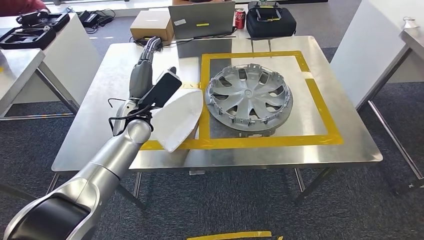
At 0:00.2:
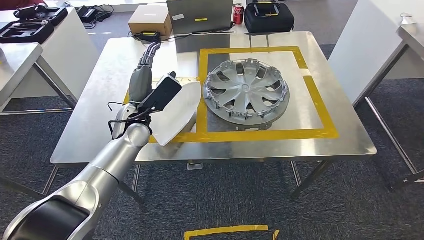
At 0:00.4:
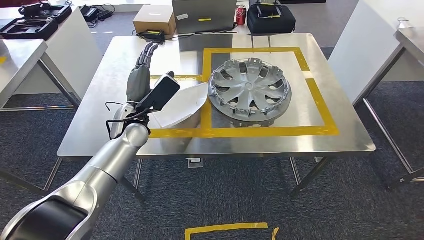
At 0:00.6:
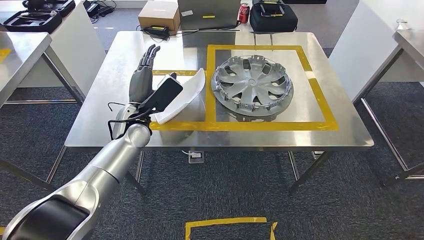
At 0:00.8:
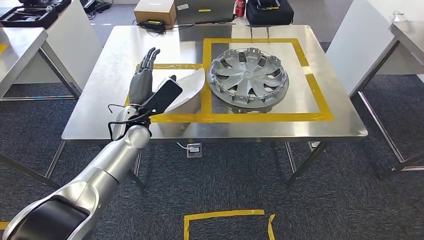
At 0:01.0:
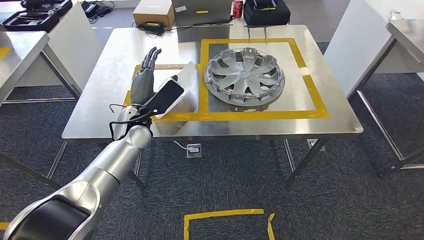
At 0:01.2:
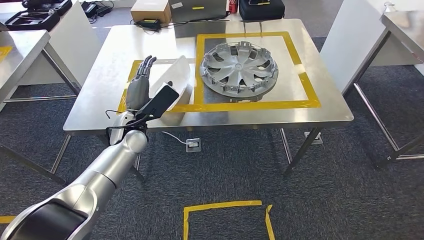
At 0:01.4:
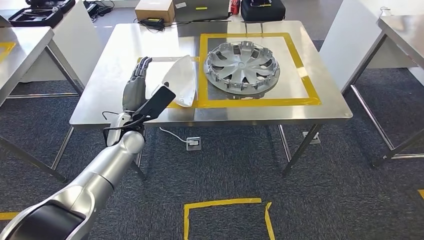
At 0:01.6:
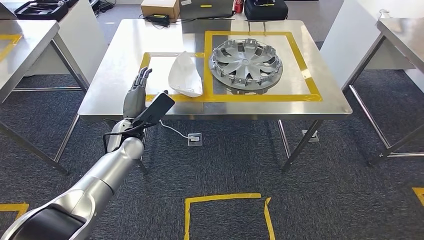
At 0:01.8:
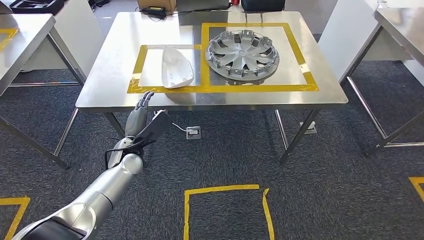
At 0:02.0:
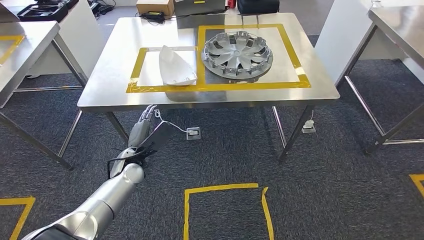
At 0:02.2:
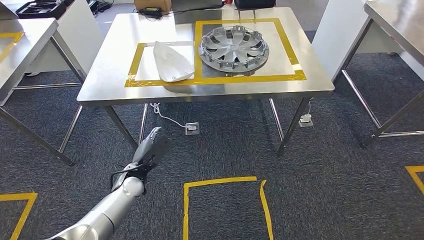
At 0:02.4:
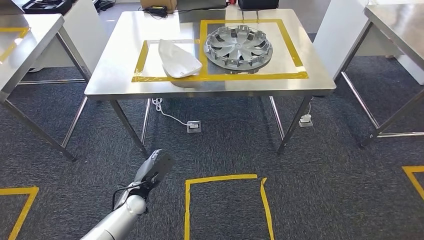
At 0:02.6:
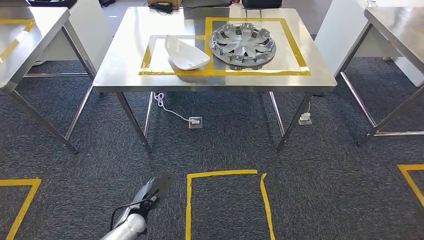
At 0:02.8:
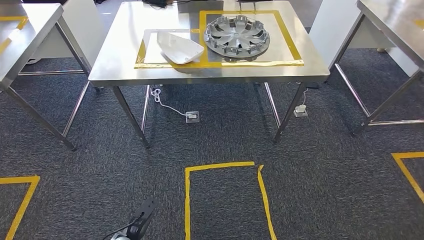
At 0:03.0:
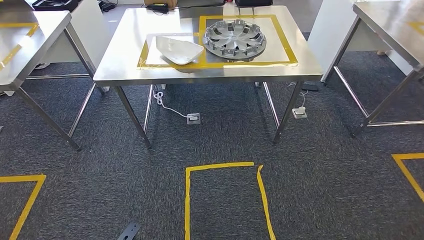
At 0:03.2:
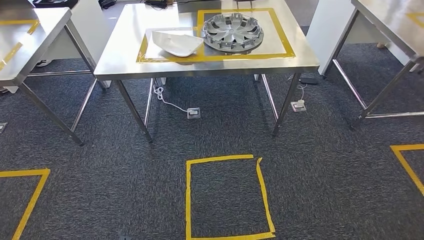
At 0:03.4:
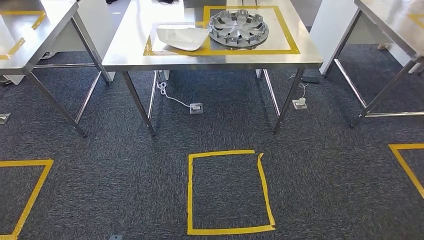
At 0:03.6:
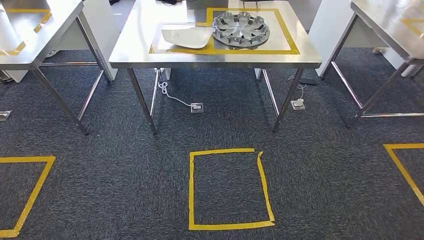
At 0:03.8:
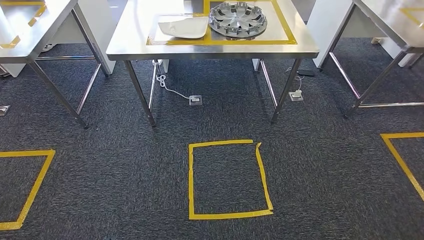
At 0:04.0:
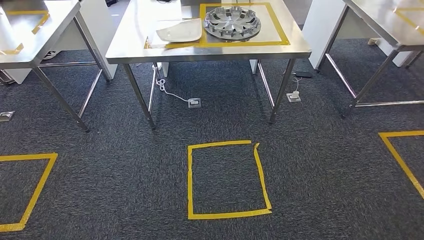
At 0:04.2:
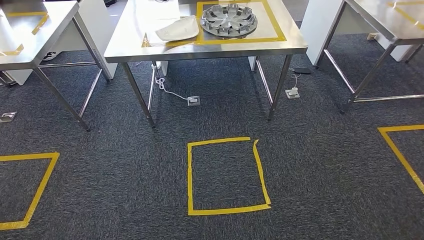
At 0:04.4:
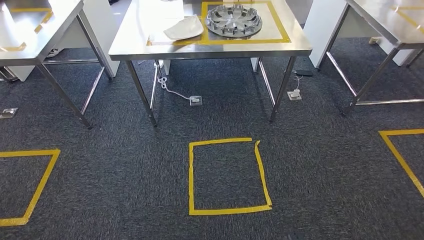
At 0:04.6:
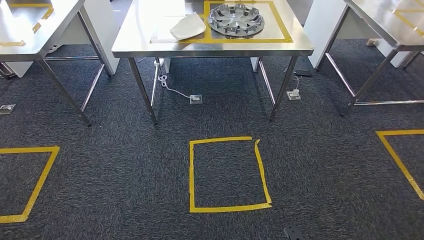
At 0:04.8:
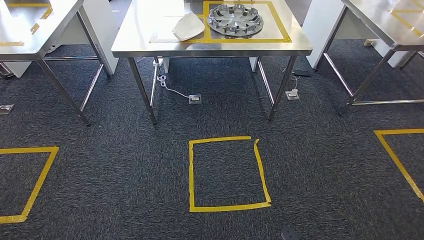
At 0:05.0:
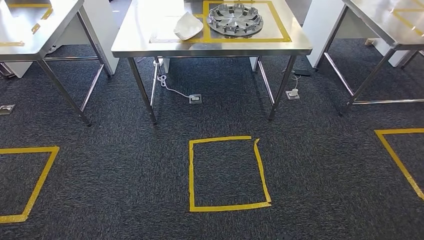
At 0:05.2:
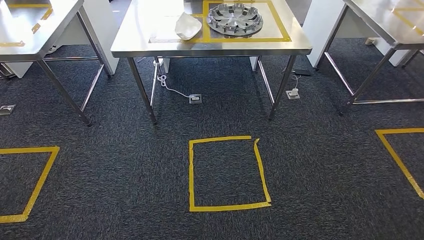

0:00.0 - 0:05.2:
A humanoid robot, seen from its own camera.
Step, 0:01.8 - 0:05.2: Move to the initial position of the shelf.

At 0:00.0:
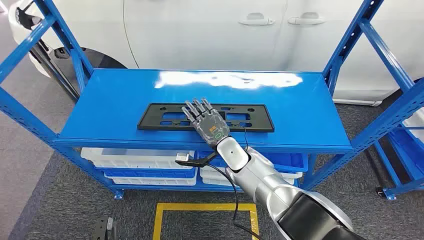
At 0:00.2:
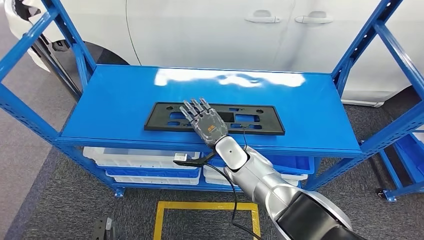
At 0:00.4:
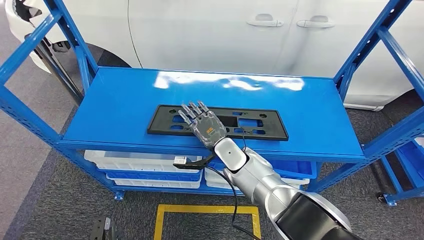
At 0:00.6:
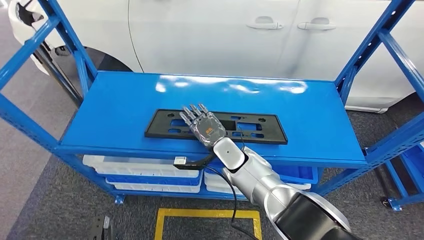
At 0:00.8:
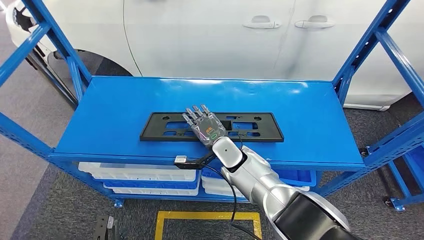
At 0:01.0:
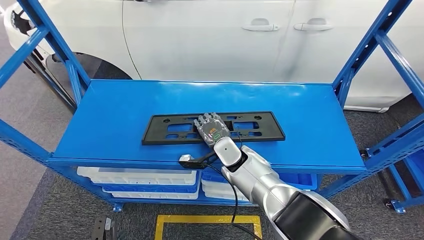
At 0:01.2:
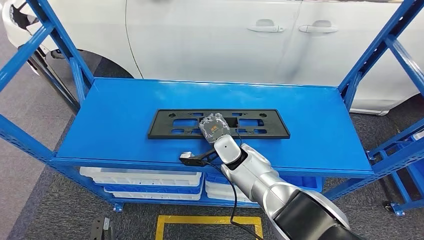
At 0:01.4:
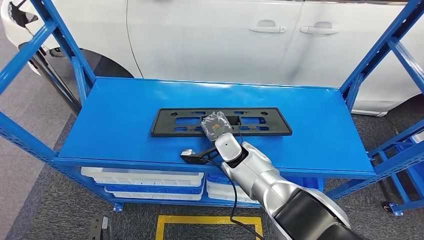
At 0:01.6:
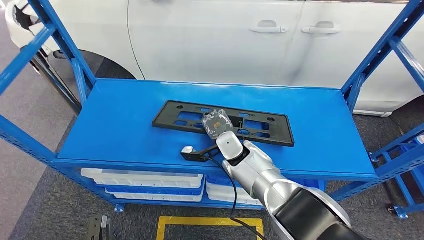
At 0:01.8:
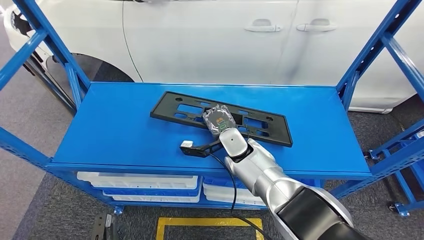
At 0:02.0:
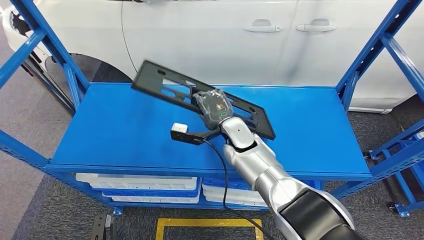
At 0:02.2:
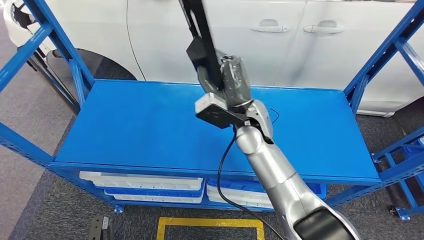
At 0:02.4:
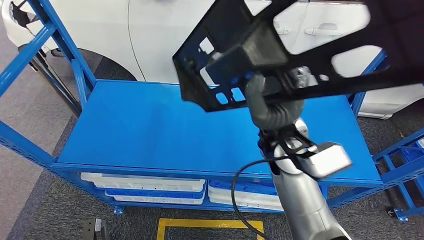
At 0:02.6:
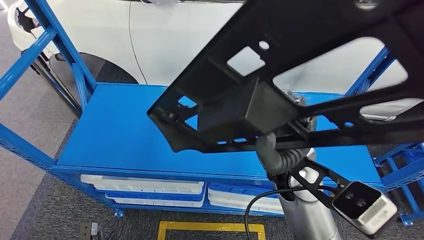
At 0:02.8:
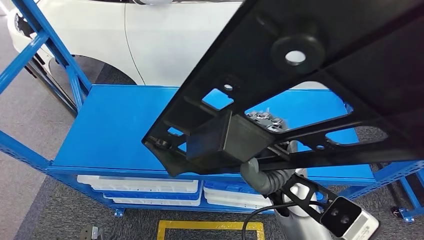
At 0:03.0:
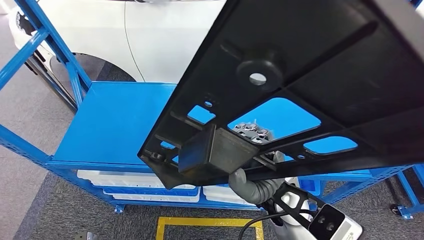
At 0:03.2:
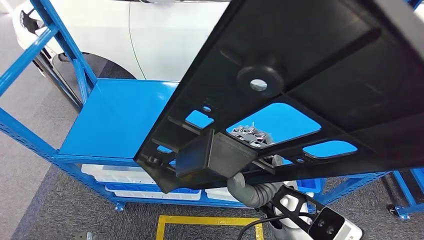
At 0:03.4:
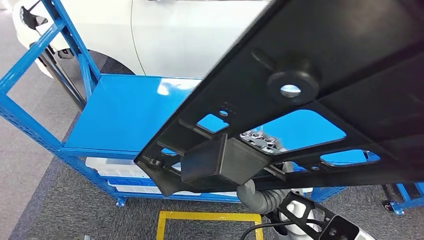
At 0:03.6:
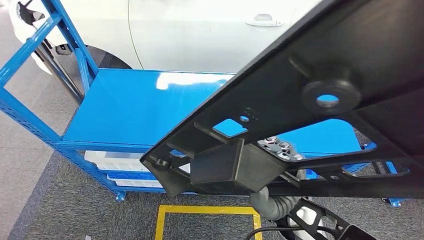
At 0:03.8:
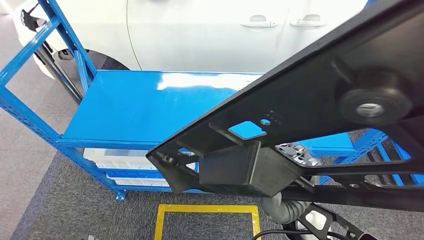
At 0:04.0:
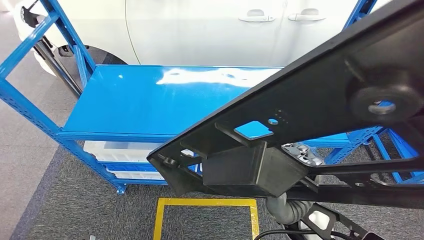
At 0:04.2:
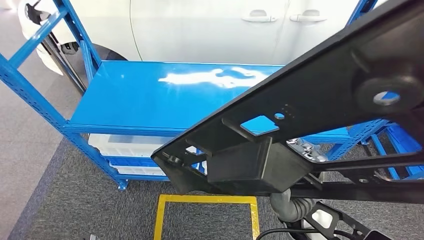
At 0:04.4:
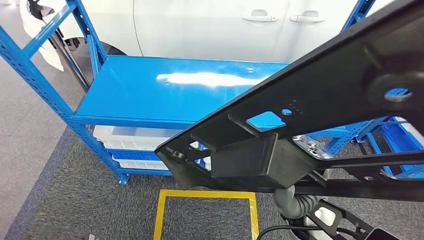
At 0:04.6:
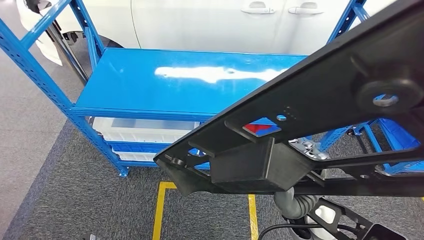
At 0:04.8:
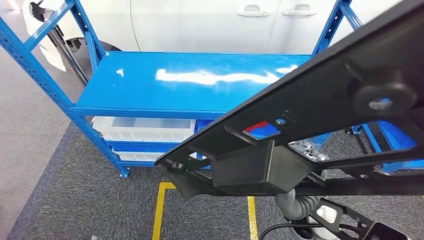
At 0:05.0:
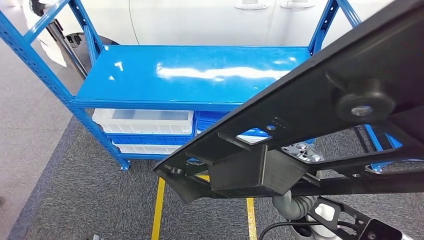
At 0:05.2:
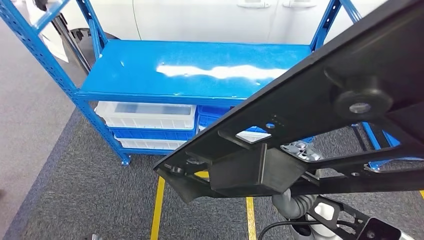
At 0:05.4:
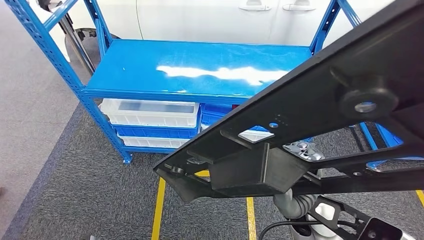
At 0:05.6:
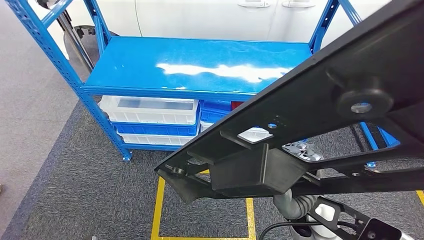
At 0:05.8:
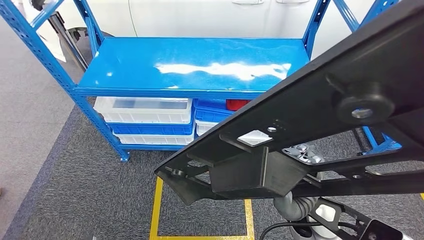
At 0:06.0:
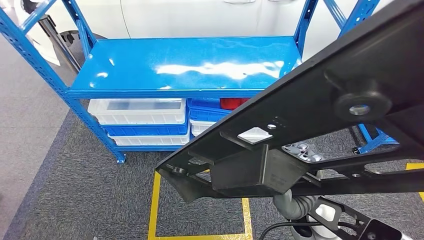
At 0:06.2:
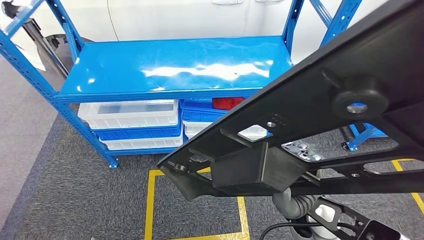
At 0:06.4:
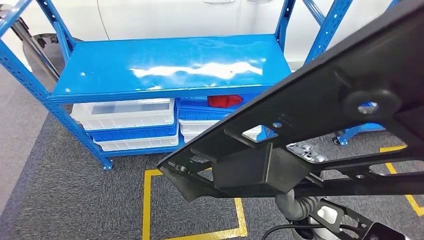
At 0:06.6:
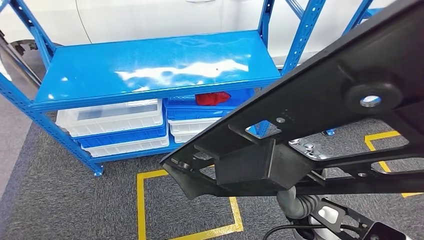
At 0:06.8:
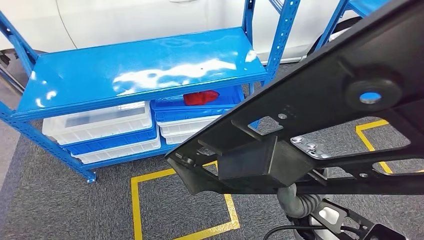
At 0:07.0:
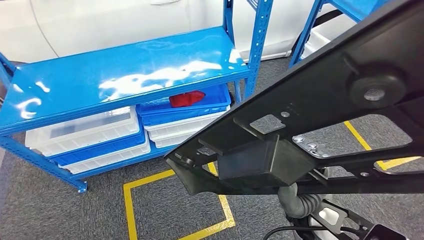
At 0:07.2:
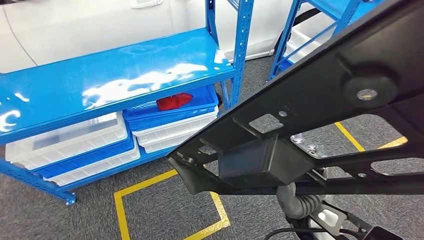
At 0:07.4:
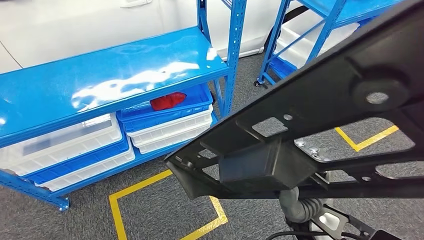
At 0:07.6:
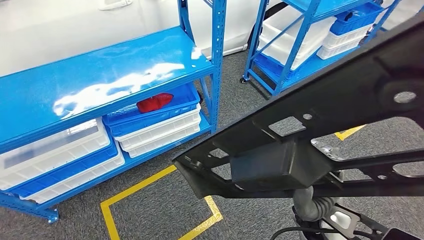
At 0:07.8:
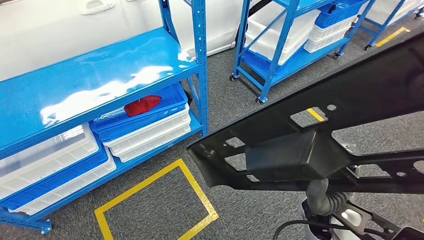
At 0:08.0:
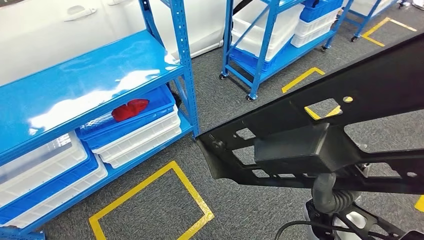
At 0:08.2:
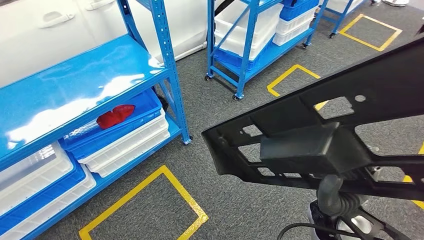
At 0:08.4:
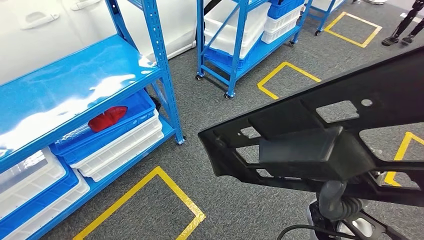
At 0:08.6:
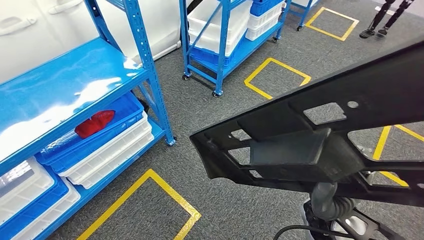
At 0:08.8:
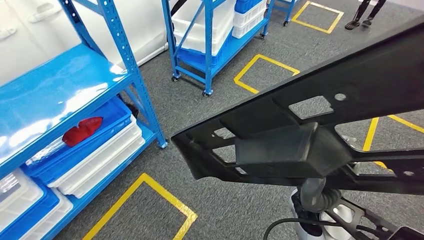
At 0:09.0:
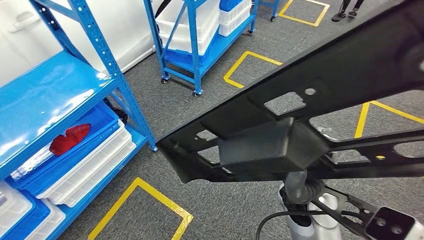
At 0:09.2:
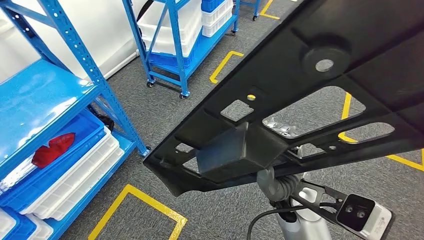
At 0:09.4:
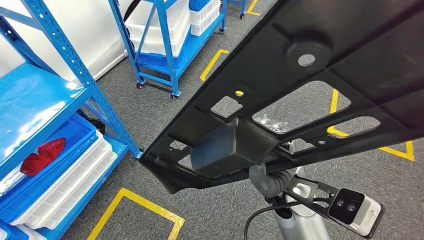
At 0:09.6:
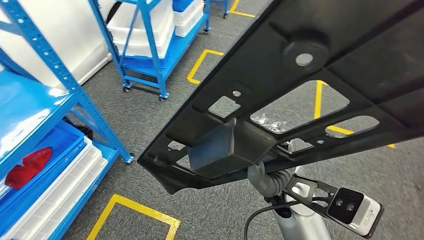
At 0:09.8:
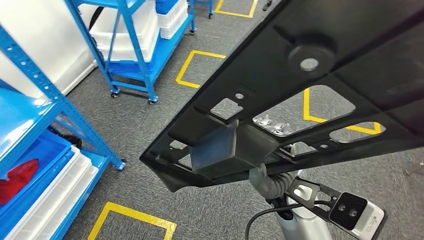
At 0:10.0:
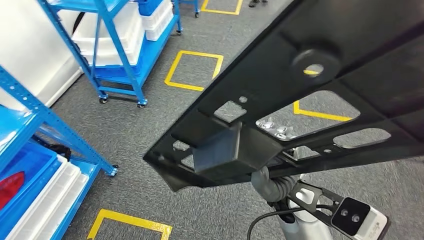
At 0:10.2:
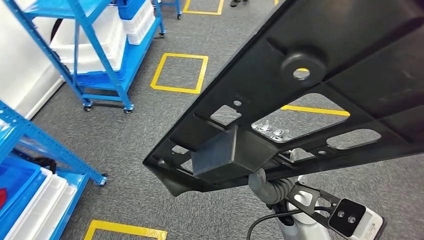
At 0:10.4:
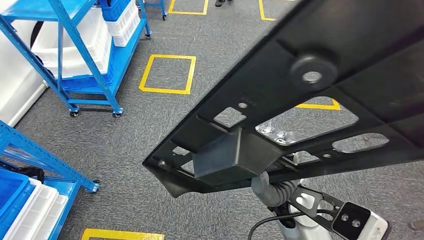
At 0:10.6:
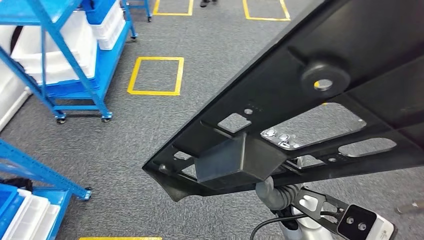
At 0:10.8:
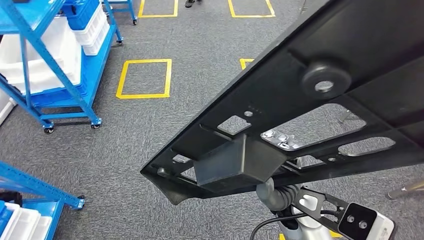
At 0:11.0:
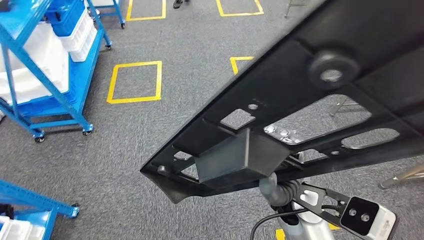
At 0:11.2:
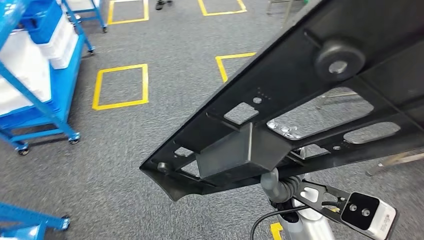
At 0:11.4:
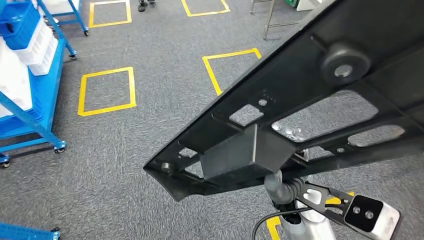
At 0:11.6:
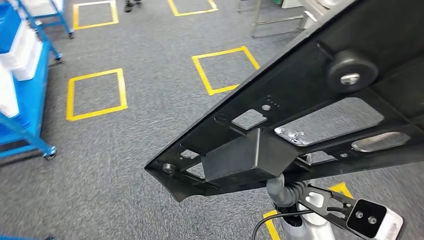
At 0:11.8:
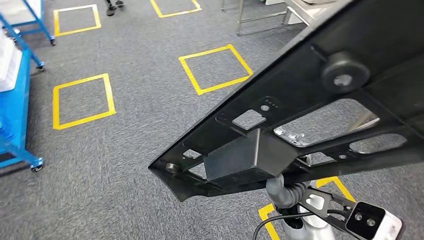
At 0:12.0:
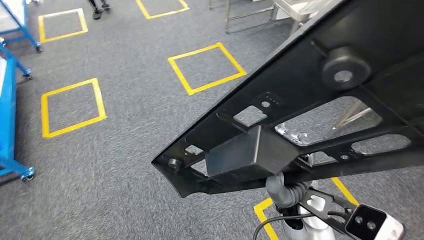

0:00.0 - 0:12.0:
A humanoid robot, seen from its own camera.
Step, 0:00.0 - 0:02.0: Pick up the large material from the shelf.
